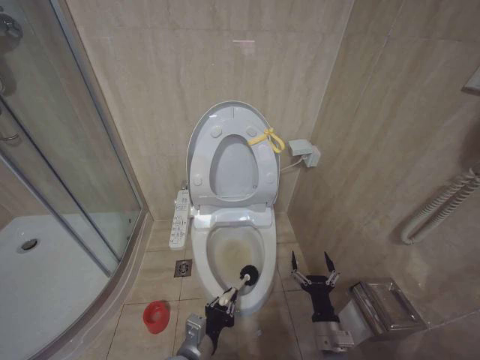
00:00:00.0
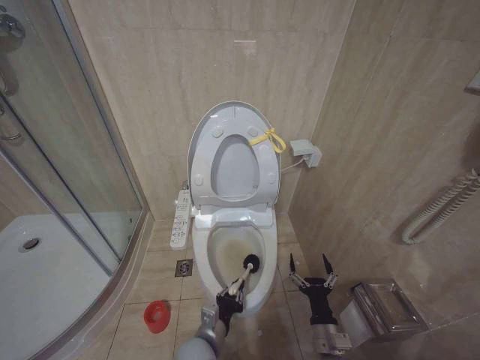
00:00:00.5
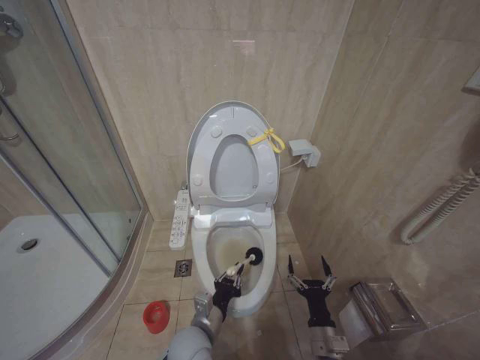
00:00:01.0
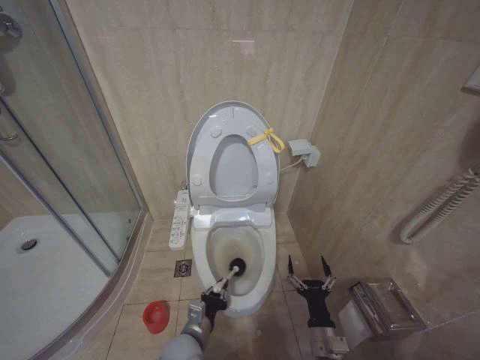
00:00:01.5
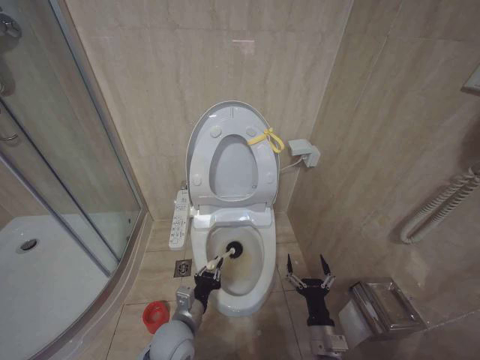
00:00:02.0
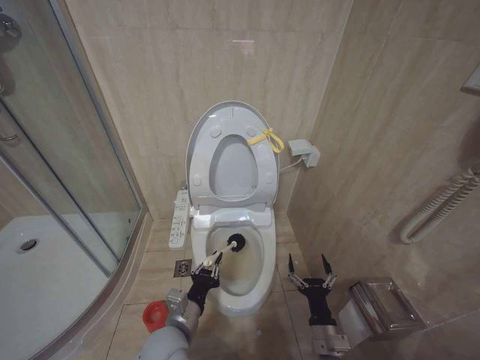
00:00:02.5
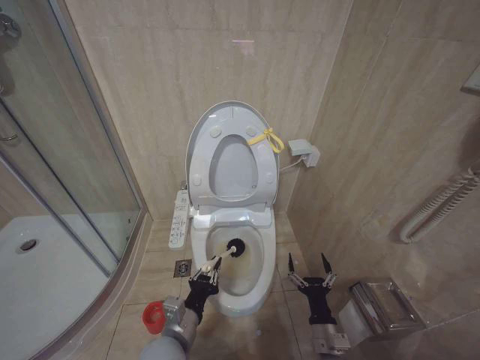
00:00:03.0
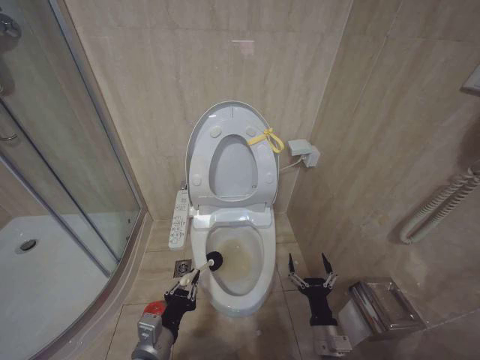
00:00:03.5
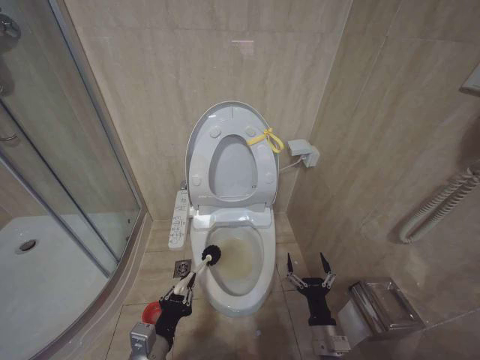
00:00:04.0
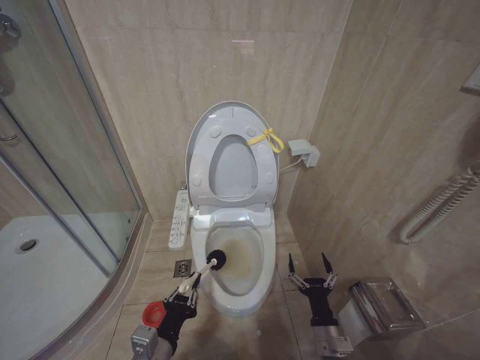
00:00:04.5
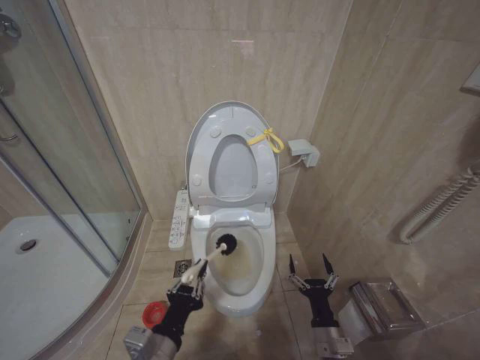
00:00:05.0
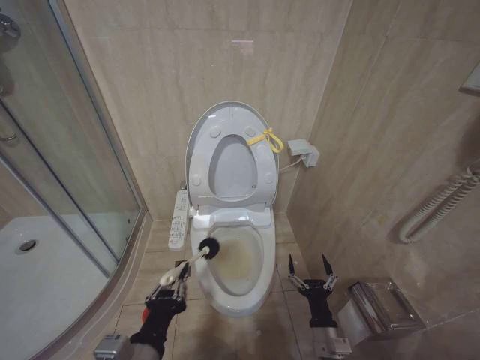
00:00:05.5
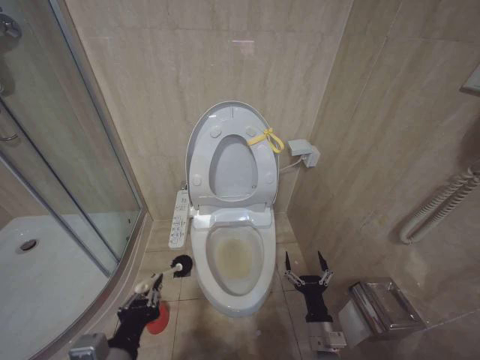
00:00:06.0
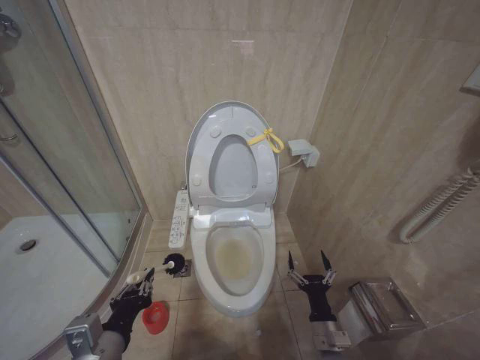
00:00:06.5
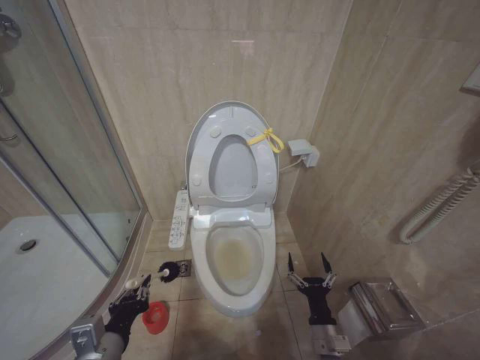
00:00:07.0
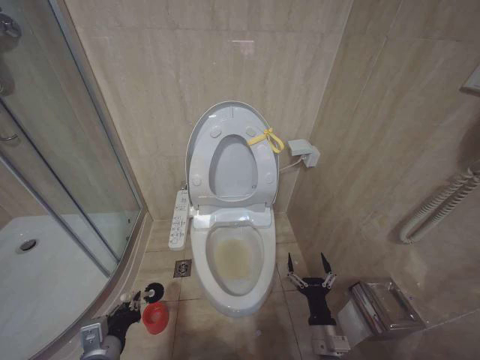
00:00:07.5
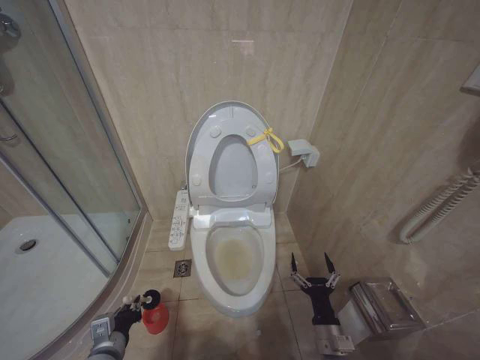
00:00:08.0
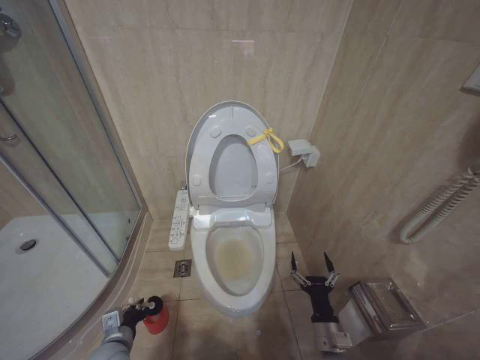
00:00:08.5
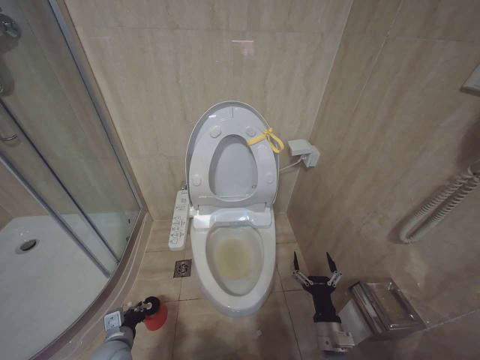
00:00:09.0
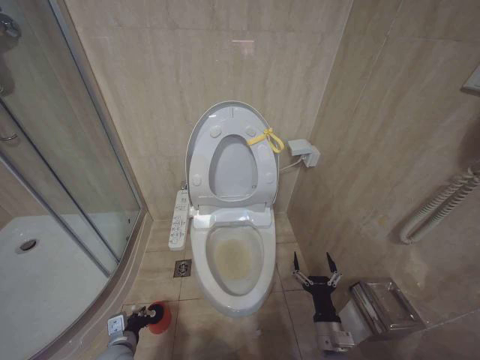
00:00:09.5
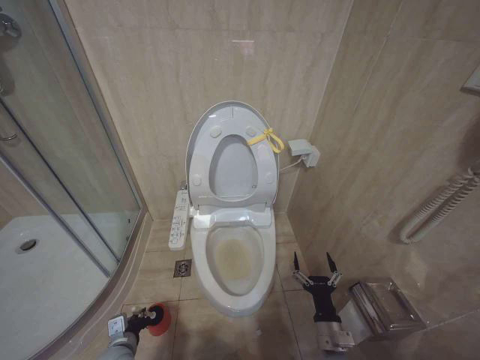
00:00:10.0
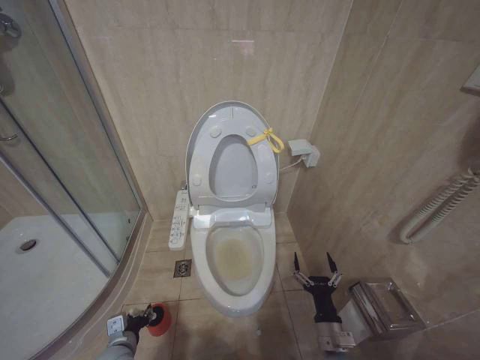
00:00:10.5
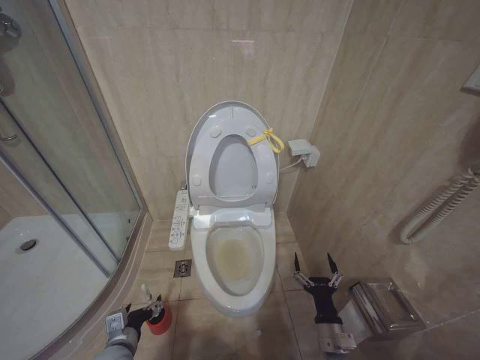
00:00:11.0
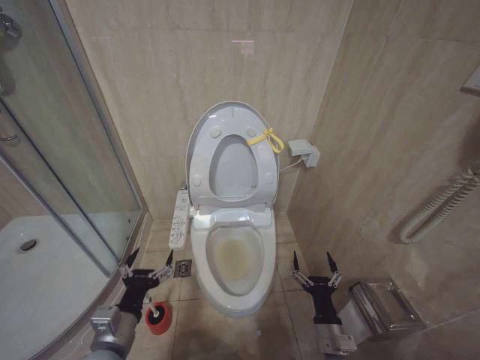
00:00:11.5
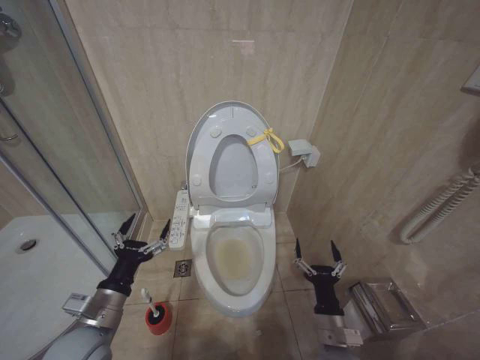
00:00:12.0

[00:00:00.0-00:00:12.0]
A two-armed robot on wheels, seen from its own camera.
Task of the whole recording: Open the toilet lid, clean the toilet bowl with a toilet brush, close the toilet lid, and flush.
00:00:00.0 to 00:00:02.0: The left gripper goes some 5 cm forward.
00:00:02.0 to 00:00:04.0: The left gripper heads backward, upward and to the left, covering roughly 15 cm.
00:00:04.0 to 00:00:06.0: The left gripper heads upward, covering approximately 10 cm.
00:00:06.0 to 00:00:08.0: The left gripper heads downward, forward and to the left, covering approximately 15 cm.
00:00:08.0 to 00:00:10.0: The left gripper heads downward, covering about 10 cm.
00:00:10.0 to 00:00:12.0: The left gripper heads upward, covering approximately 20 cm, and opens its fingers.

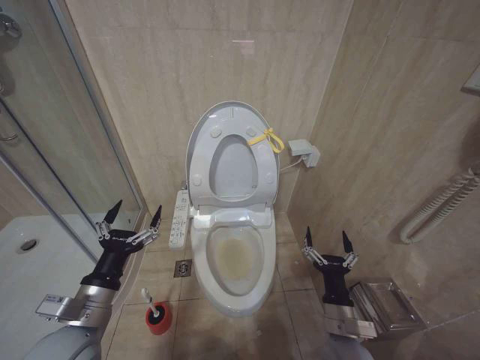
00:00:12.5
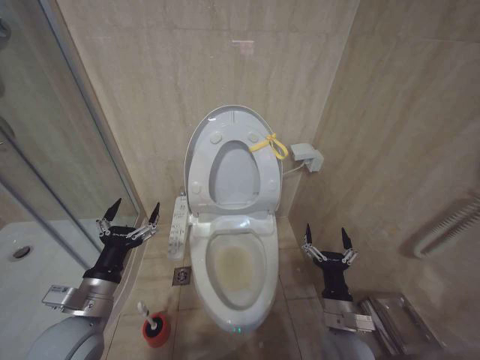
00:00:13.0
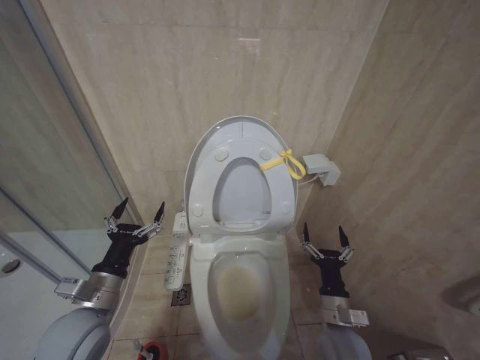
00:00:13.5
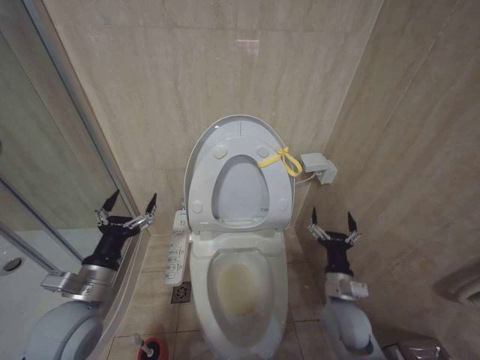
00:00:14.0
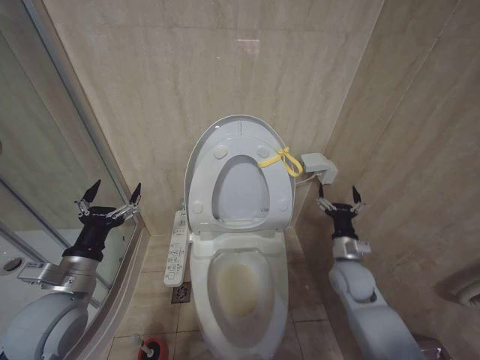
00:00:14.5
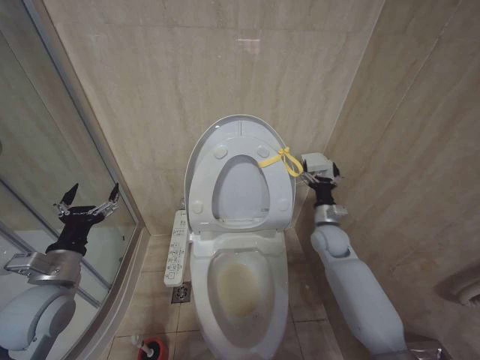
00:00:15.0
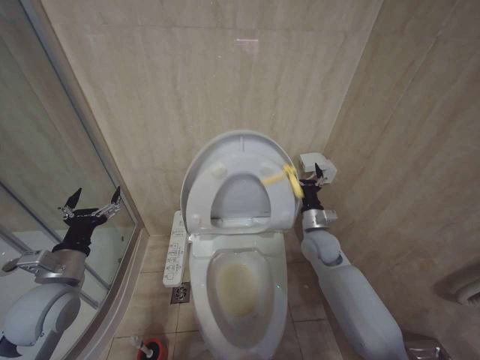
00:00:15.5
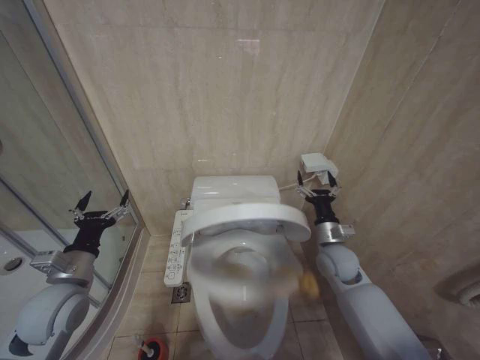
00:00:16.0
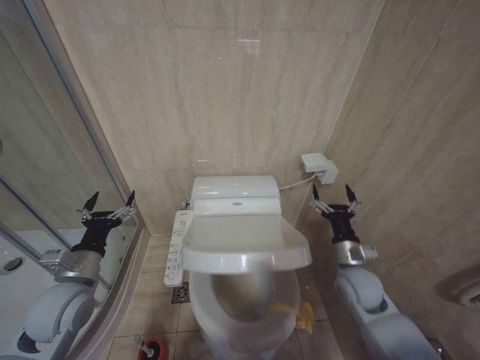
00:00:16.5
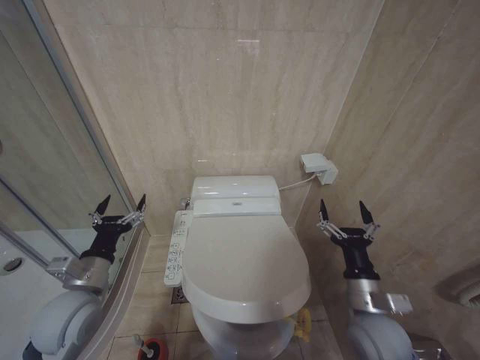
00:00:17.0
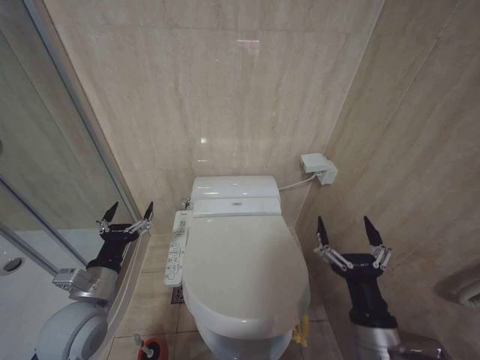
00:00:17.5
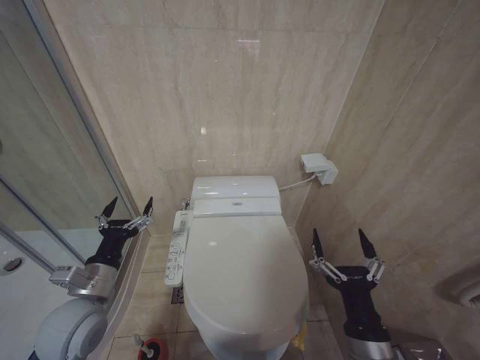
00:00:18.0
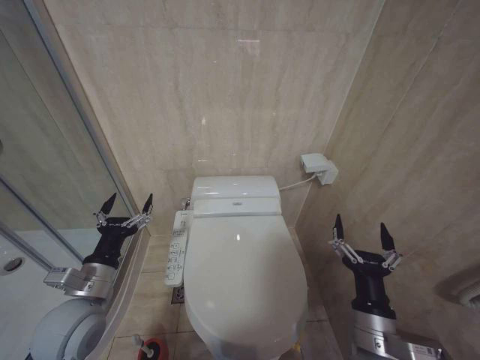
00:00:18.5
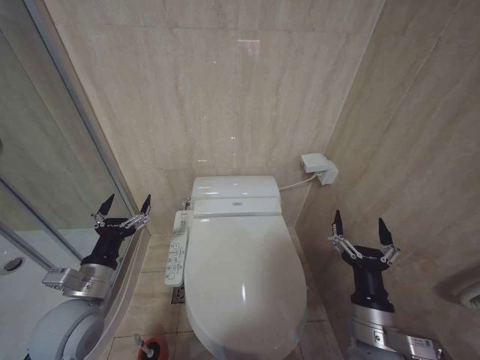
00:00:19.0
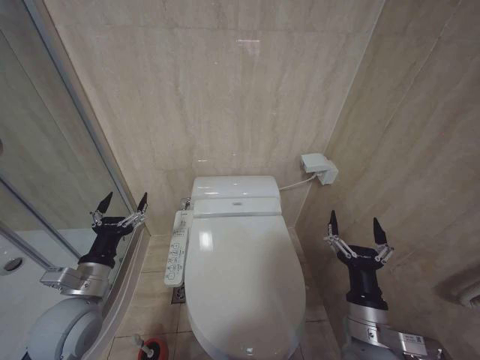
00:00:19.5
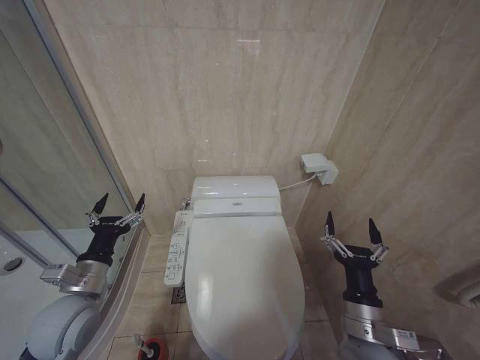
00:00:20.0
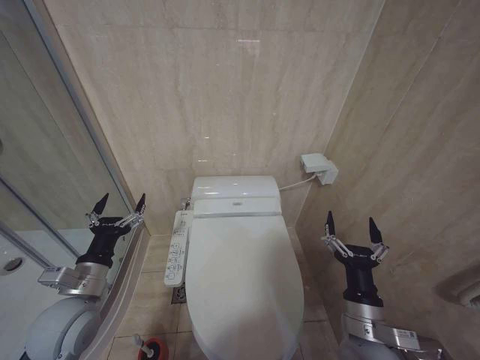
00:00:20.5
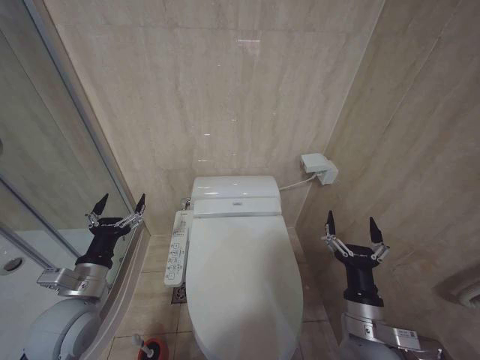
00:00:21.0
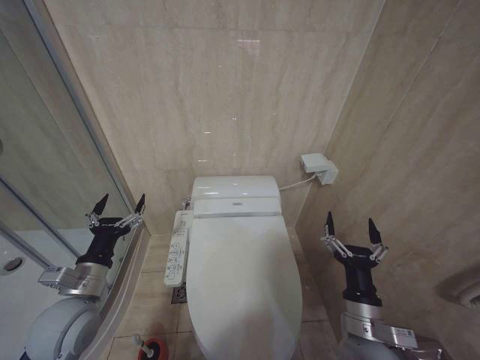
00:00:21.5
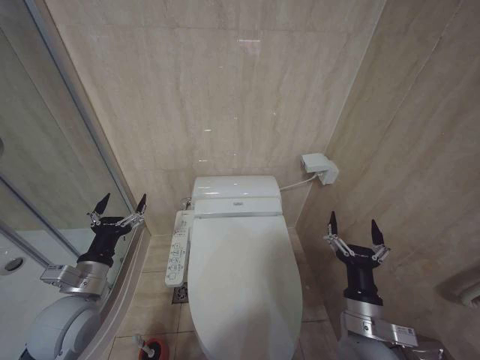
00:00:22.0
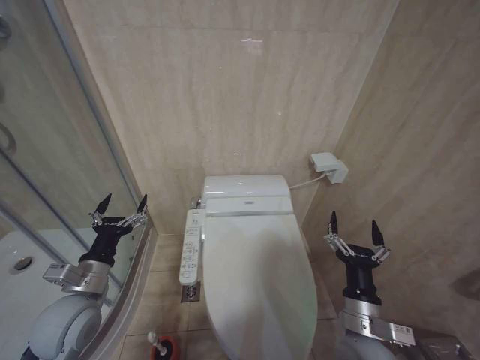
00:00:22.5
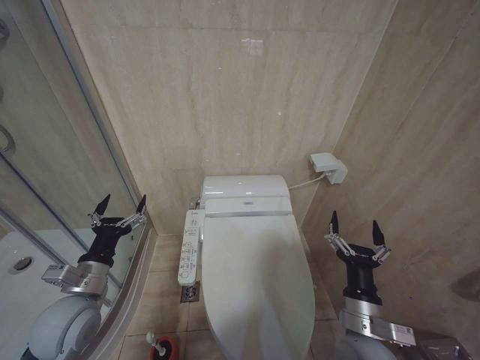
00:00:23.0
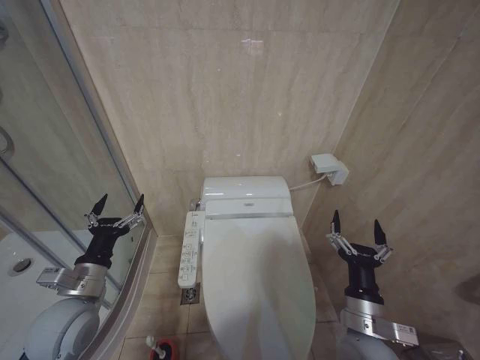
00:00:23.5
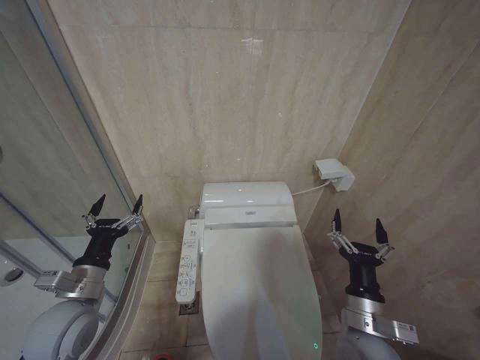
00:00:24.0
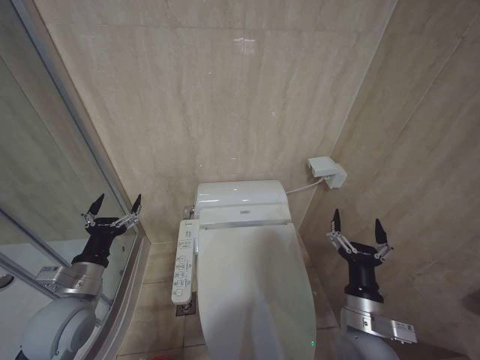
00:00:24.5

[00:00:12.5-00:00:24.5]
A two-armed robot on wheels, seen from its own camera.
Task of the whole recording: Open the toilet lid, clean the toilet bowl with a toilet brush, close the toilet lid, and flush.
00:00:12.5 to 00:00:14.5: The left gripper shifts by about 5 cm; the right gripper heads forward and to the right, covering some 15 cm.
00:00:14.5 to 00:00:16.5: The left gripper changes place by some 5 cm. Meanwhile the right gripper moves some 10 cm forward and comes back.
00:00:16.5 to 00:00:18.5: The right gripper heads backward and to the left, covering roughly 20 cm, while the left gripper shifts by some 5 cm.
00:00:18.5 to 00:00:20.5: The grippers make only small movements.
00:00:20.5 to 00:00:22.5: Neither gripper changes place.
00:00:22.5 to 00:00:24.5: Neither gripper changes place.

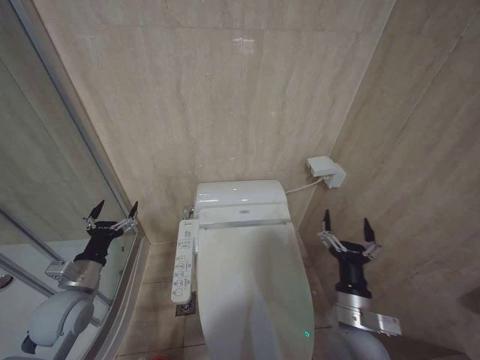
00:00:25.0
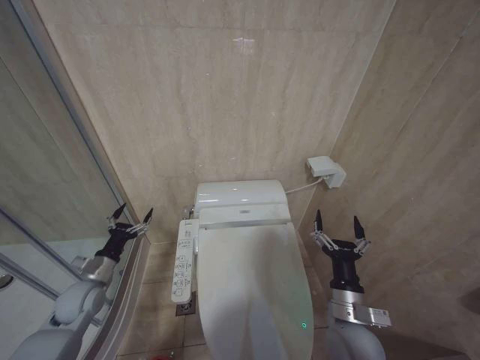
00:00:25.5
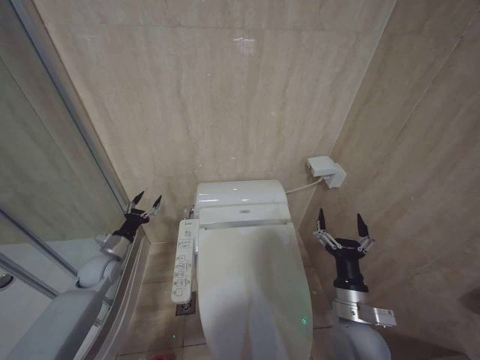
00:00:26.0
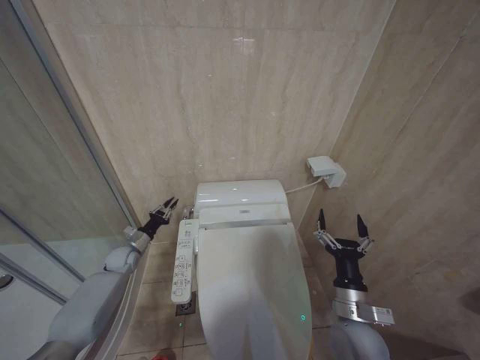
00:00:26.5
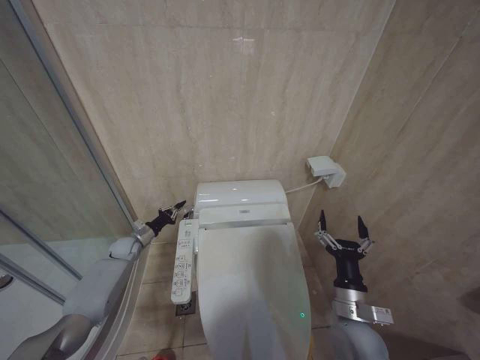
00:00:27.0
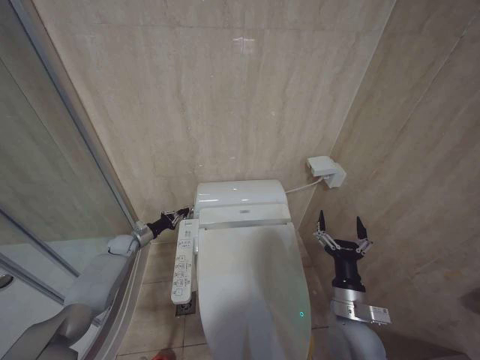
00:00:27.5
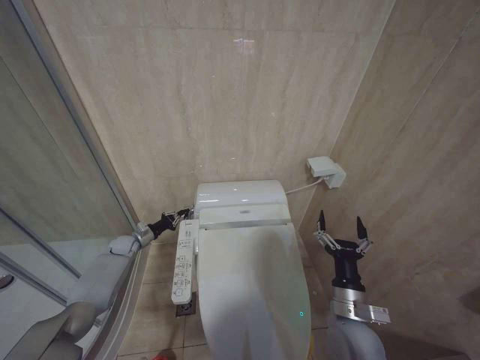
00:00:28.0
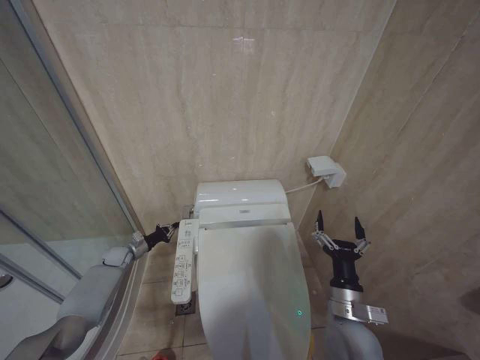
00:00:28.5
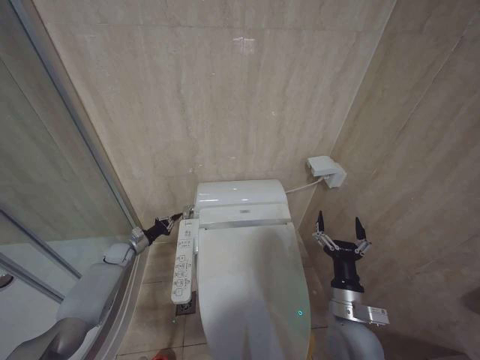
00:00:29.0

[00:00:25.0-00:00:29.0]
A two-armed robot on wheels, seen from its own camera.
Task of the whole recording: Open the toilet lid, clean the toilet bowl with a toilet brush, close the toilet lid, and flush.
00:00:25.0 to 00:00:27.0: The left gripper heads forward and downward, covering roughly 30 cm, and closes up.
00:00:27.0 to 00:00:29.0: There are only small adjustments of the grippers.
